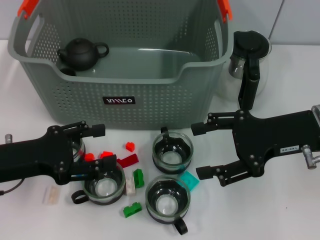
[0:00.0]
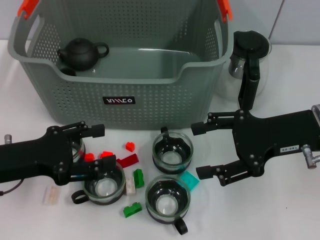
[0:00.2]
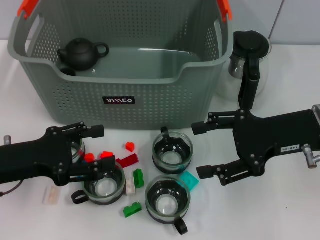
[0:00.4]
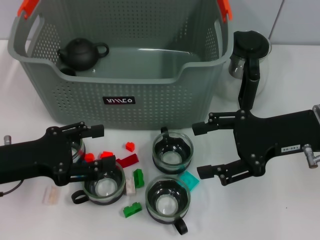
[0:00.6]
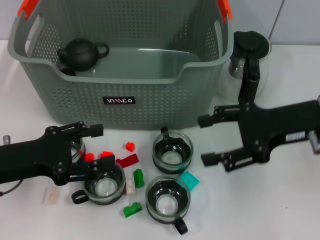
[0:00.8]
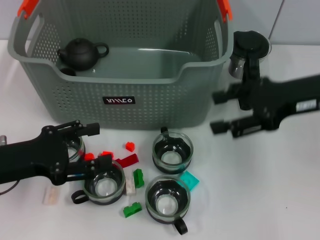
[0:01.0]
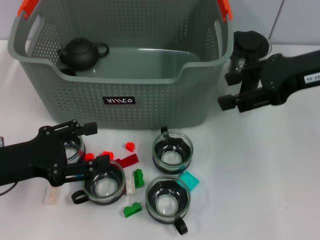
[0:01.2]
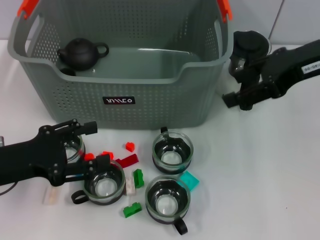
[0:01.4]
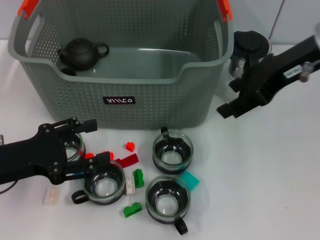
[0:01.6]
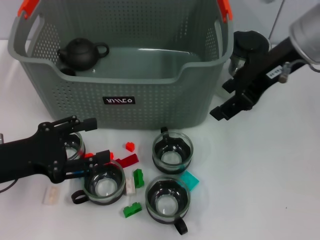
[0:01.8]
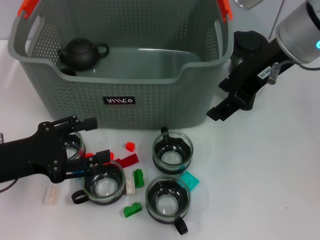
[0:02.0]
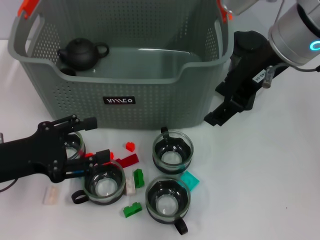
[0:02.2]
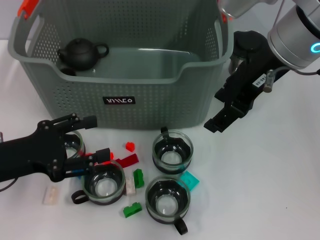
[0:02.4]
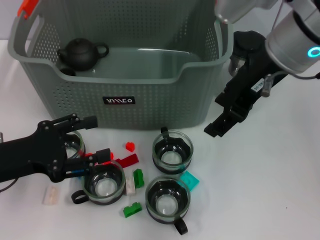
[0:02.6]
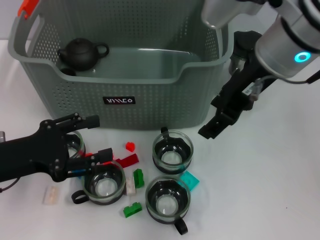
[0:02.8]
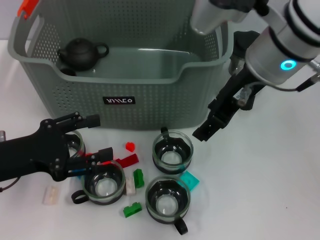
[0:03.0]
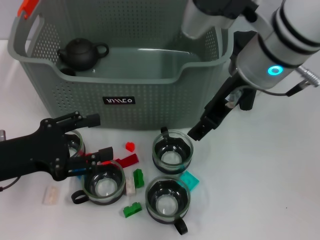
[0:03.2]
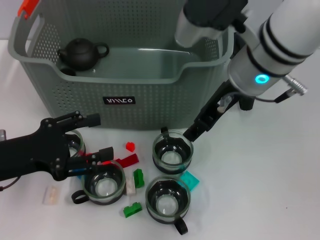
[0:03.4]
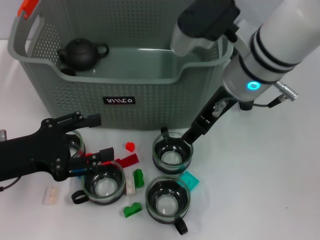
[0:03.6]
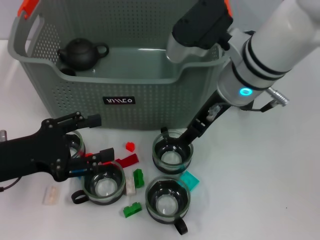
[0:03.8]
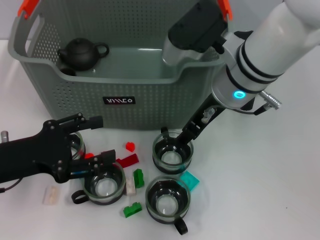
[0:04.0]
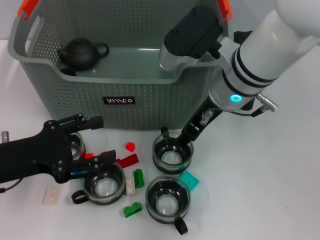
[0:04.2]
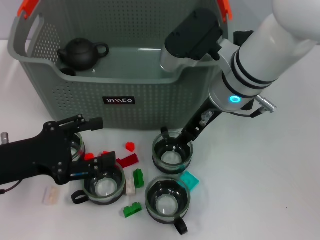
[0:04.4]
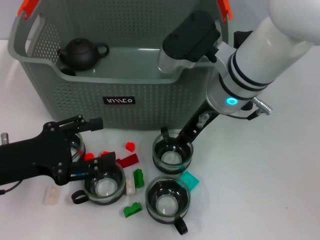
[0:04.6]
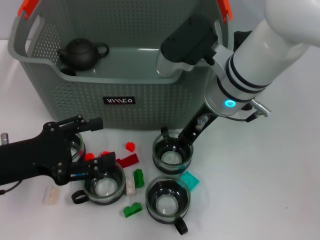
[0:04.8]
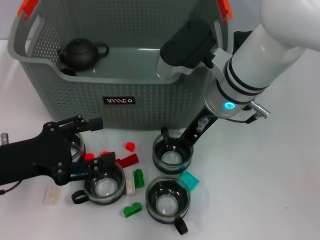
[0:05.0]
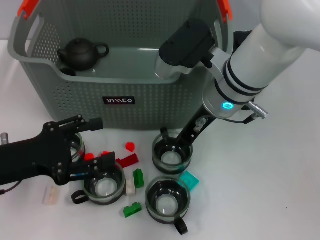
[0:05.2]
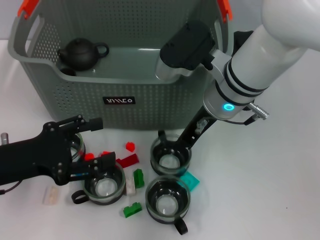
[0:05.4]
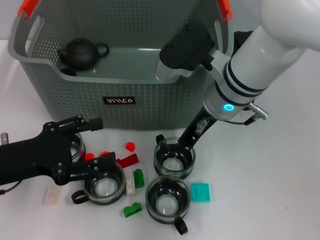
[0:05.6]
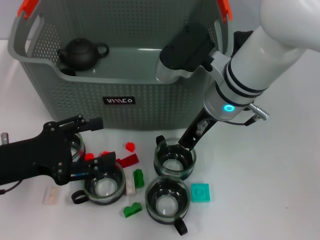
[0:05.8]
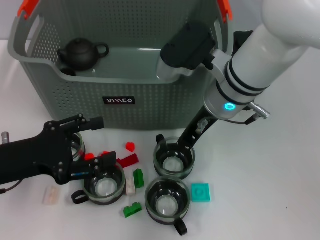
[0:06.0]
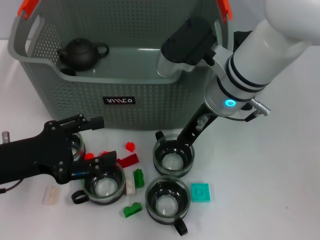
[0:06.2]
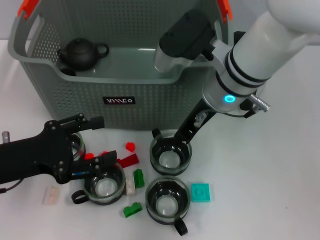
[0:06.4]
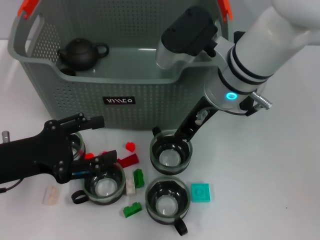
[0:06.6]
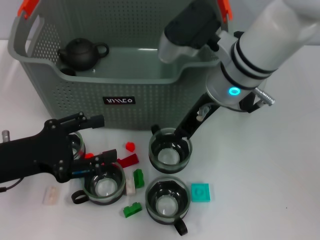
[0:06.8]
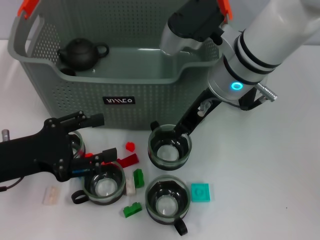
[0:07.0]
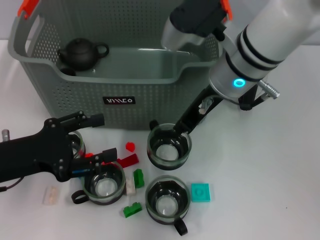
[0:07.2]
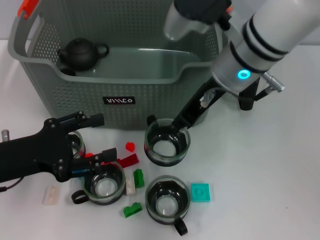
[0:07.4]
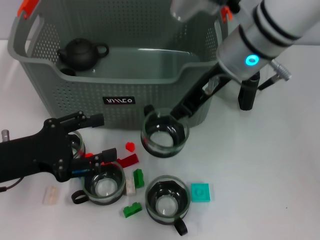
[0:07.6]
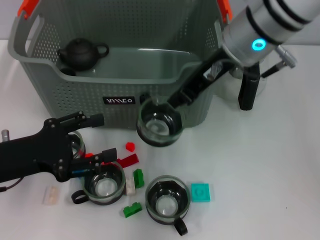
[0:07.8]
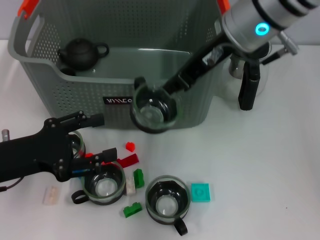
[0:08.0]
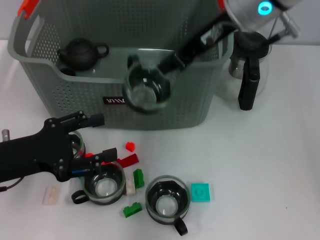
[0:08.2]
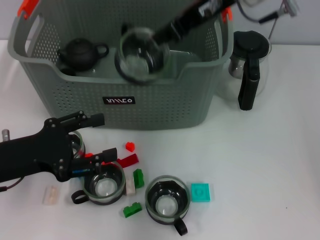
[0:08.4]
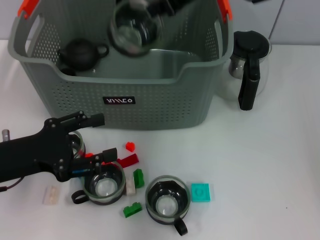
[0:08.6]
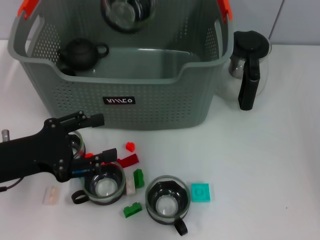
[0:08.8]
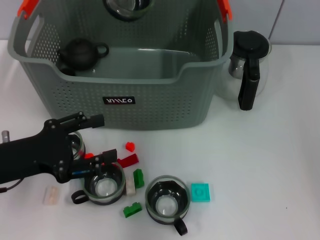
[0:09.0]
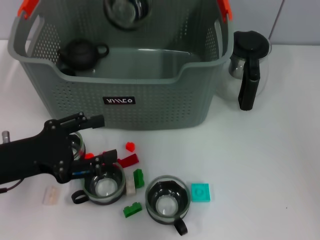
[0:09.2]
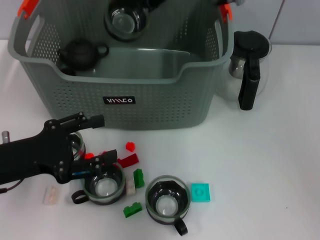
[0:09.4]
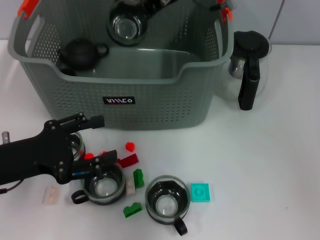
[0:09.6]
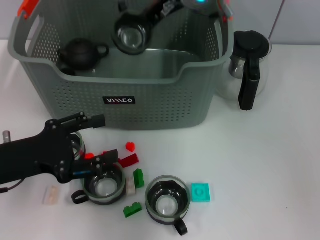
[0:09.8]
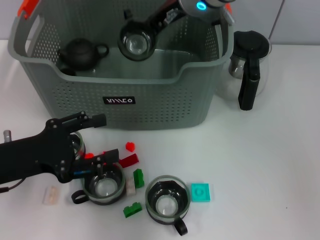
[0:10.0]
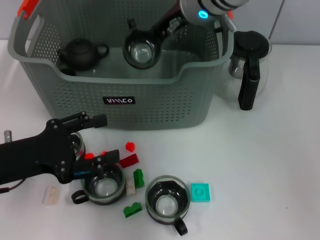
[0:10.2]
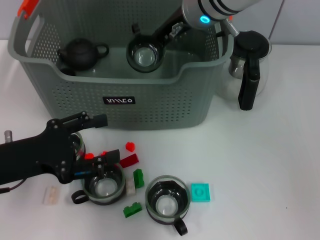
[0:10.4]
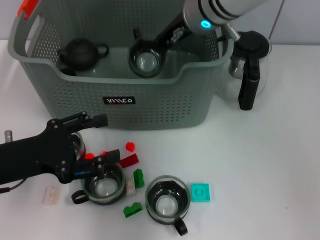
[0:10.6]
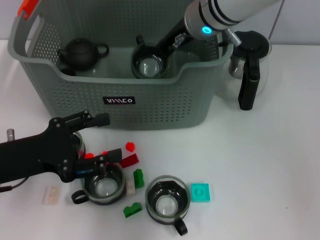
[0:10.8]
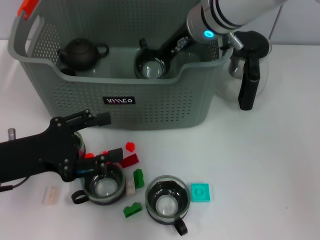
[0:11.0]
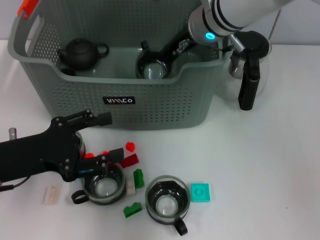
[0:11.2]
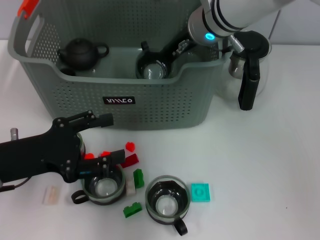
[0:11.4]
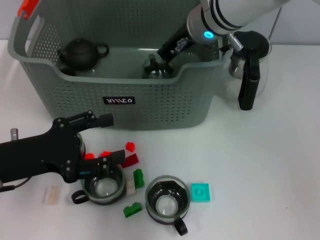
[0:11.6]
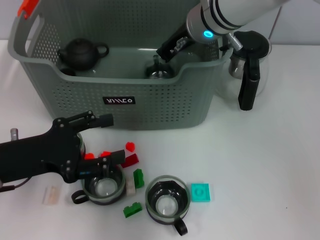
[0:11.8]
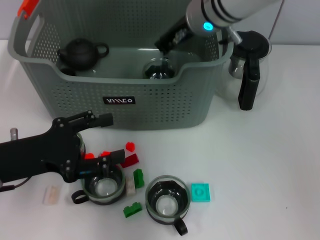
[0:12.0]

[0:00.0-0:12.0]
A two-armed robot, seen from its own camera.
Task of the whole recording: pick up the teacup on the table and place it into the storage bin, pick up the block on the table and place it into the storage bin.
Step, 0:00.0 to 0:06.2: Grasp the cup with right gripper.
Step, 0:06.4 to 0:11.6: Place the cup in the storage box with right gripper.
0:00.0 to 0:01.6: The right gripper moves upward and forward, about 10 cm.
0:01.6 to 0:03.0: The right gripper is displaced to the left by approximately 10 cm.
0:03.0 to 0:04.4: The right gripper is displaced downward by about 10 cm.
0:04.4 to 0:06.0: The right gripper closes.
0:06.0 to 0:07.6: The right gripper travels upward by approximately 5 cm.
0:07.6 to 0:09.0: The right gripper travels upward and forward by roughly 10 cm.
0:09.0 to 0:10.4: The right gripper travels downward by about 10 cm.
0:10.4 to 0:12.0: The grippers make only small movements.

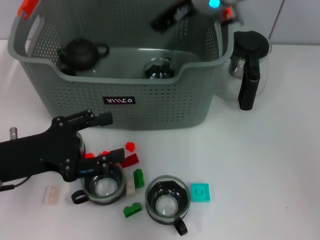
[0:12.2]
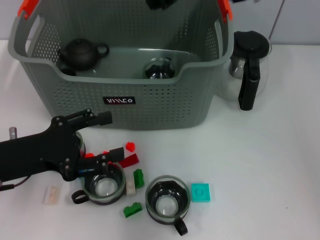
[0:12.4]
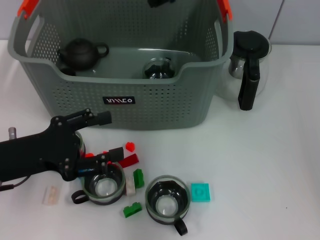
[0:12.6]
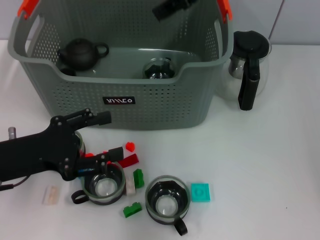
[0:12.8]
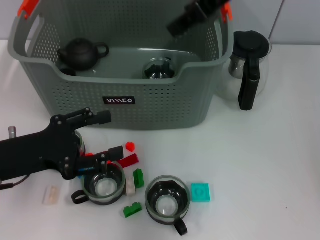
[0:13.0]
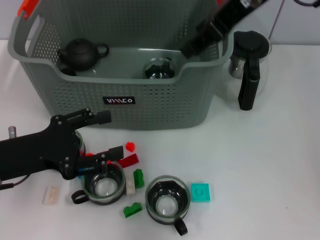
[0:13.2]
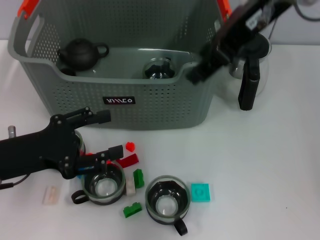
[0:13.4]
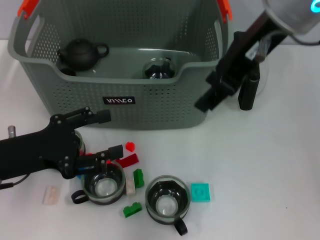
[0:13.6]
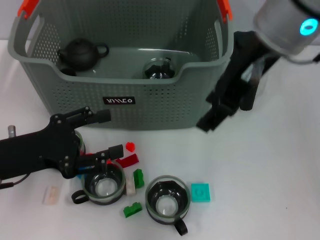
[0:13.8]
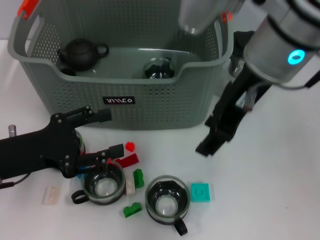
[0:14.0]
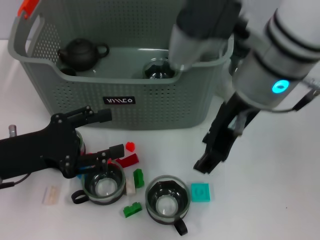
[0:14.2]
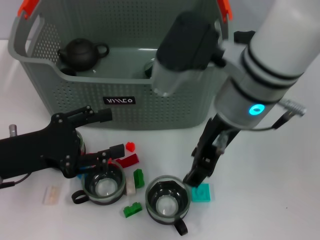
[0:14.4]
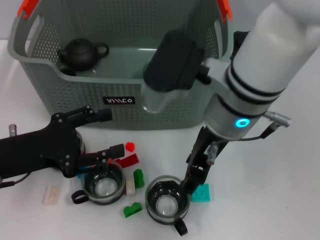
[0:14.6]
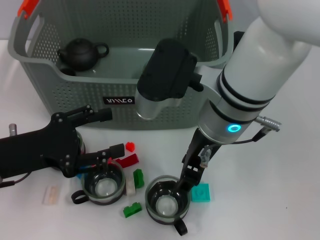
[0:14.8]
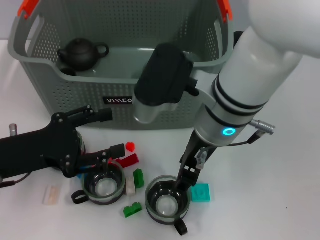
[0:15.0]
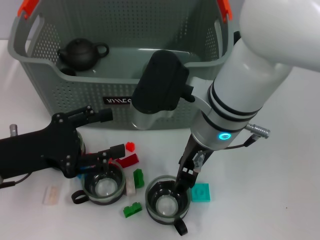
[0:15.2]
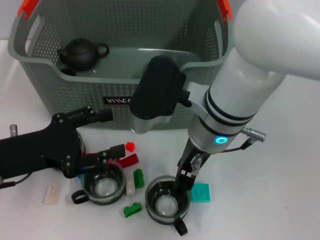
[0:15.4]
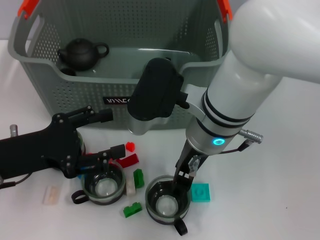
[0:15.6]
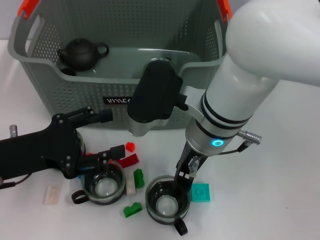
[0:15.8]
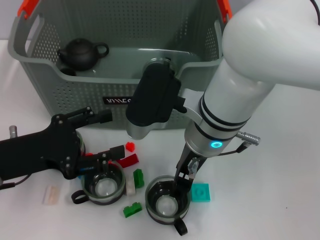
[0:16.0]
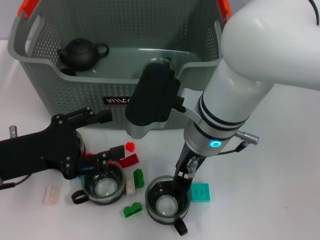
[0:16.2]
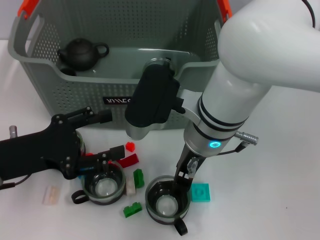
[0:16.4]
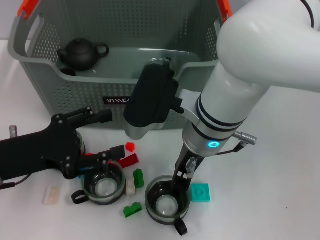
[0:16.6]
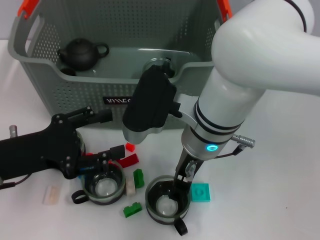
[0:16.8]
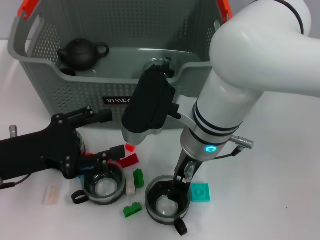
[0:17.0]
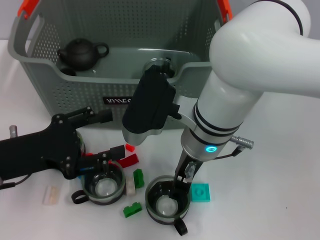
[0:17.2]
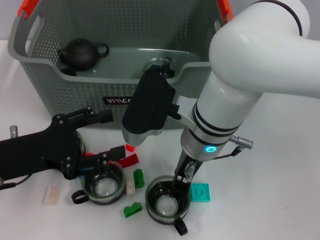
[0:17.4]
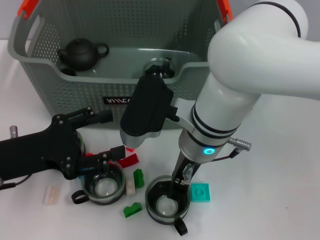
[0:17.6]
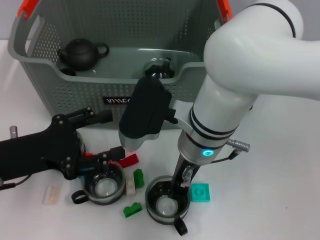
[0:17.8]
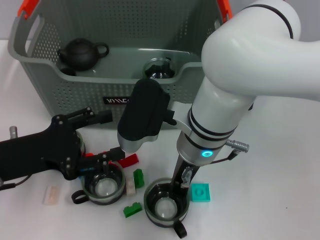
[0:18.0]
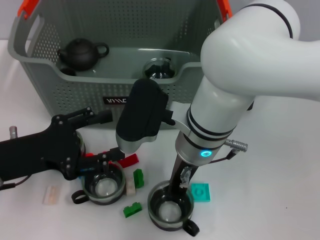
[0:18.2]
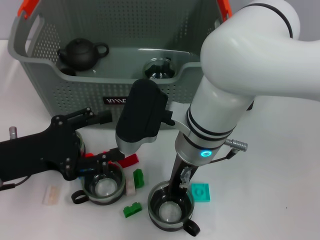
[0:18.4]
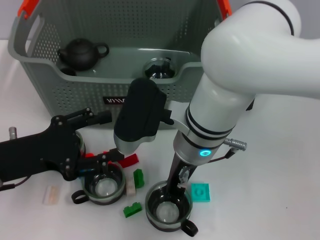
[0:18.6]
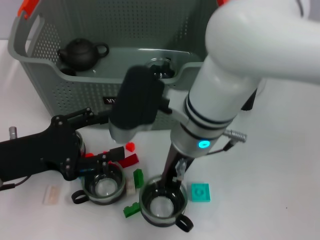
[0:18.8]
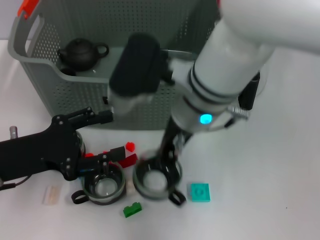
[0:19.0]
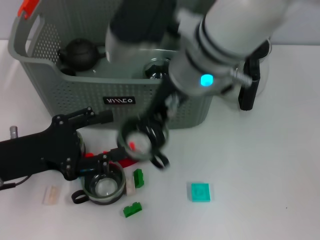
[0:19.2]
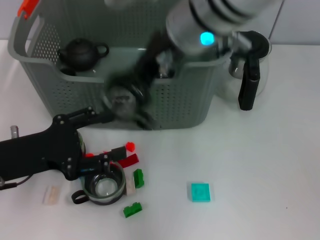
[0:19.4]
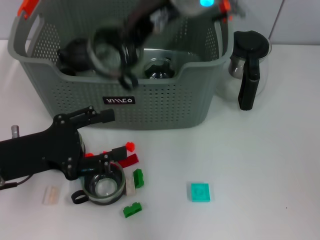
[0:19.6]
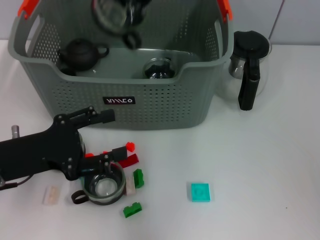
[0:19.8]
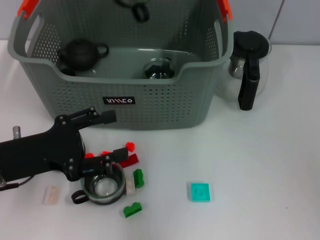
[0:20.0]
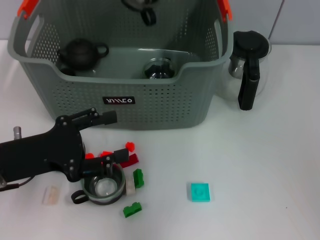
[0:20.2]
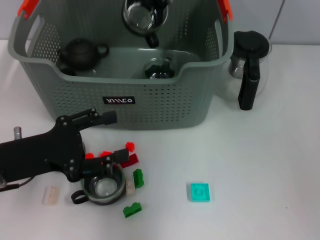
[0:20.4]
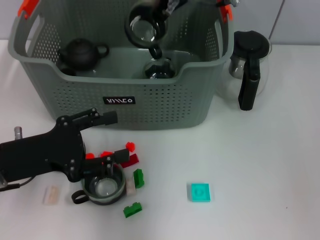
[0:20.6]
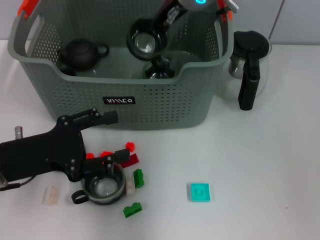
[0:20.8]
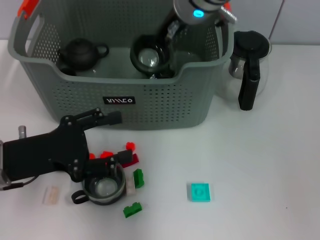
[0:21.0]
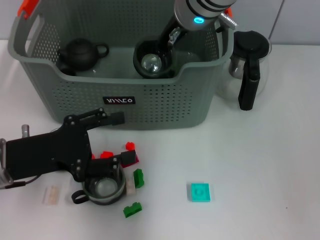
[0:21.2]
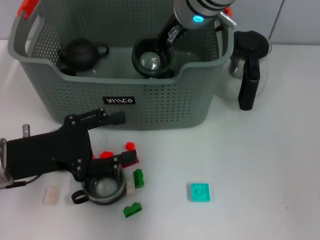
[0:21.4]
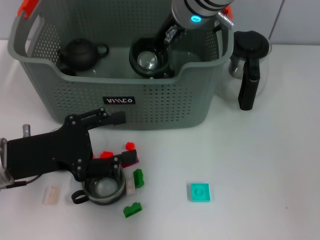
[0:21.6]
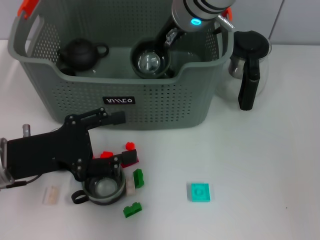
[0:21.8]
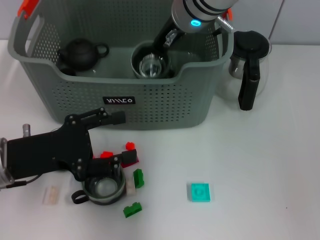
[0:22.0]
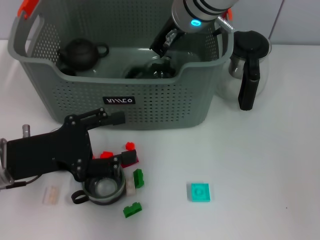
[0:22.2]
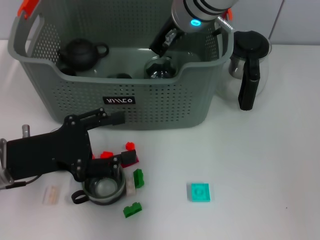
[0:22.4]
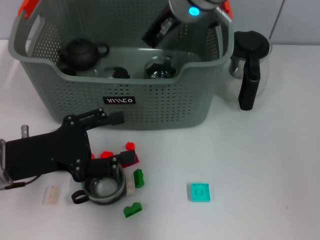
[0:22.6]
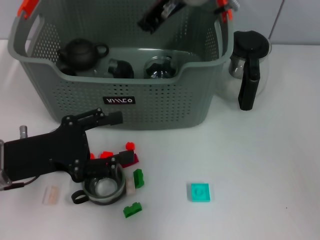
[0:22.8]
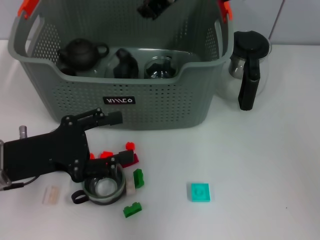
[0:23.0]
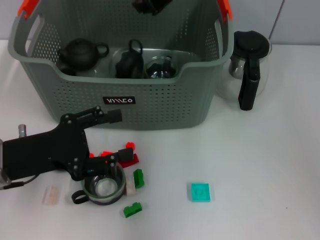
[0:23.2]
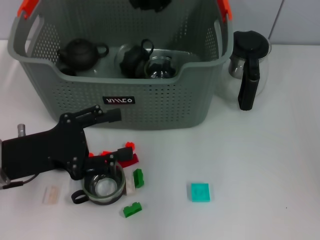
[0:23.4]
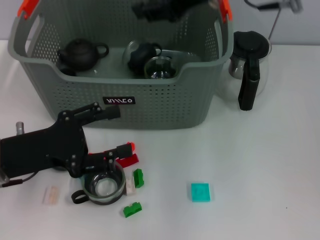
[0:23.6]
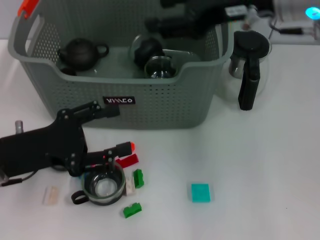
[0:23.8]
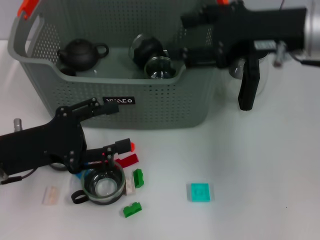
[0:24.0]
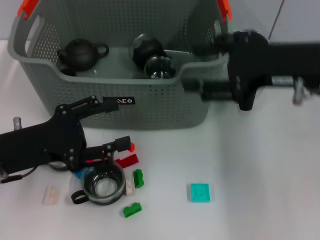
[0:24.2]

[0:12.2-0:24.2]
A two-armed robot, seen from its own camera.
Task of the whole recording: pick up the teacup on the table and place it into the storage bin, pick up the block on the table and place it into the storage bin.
Step, 0:12.2 to 0:18.6: Grasp the cup with right gripper.
Step, 0:18.8 to 0:22.0: Place the cup in the storage box with right gripper.
0:12.2 to 0:13.8: The right gripper travels backward and upward by about 15 cm, and opens up.
0:13.8 to 0:15.2: The right gripper goes roughly 15 cm downward and to the left.
0:15.2 to 0:16.6: The grippers move only a little.
0:16.6 to 0:18.2: The right gripper closes.
0:18.2 to 0:19.8: The right gripper shifts roughly 20 cm upward and forward.
0:19.8 to 0:21.2: The right gripper goes roughly 10 cm downward and forward.
0:21.2 to 0:22.6: There are only small adjustments of the grippers.
0:22.6 to 0:24.2: The right gripper shifts roughly 20 cm to the right and backward, and opens its fingers.
